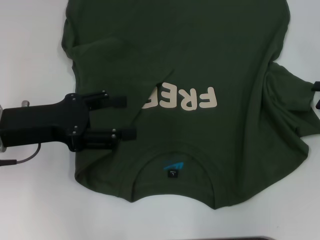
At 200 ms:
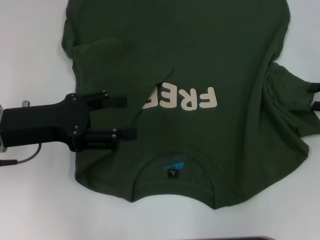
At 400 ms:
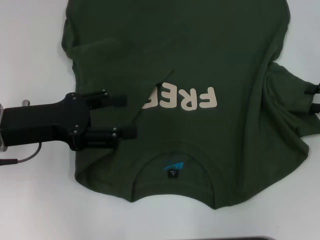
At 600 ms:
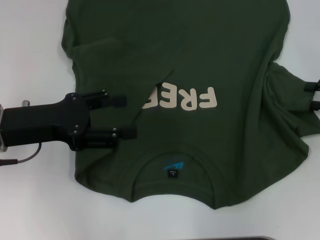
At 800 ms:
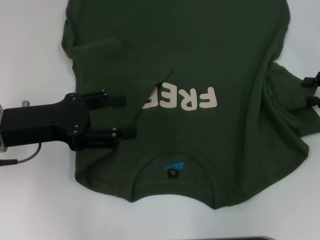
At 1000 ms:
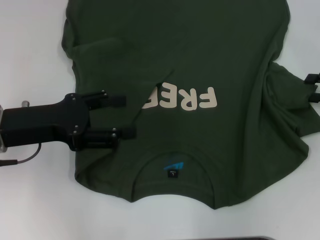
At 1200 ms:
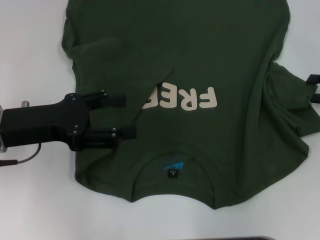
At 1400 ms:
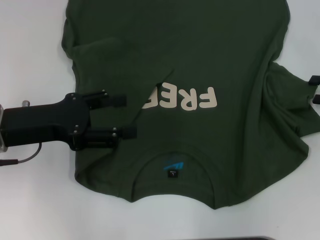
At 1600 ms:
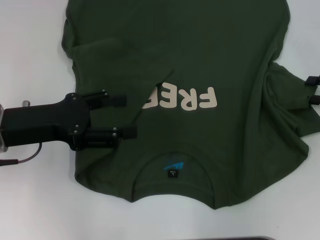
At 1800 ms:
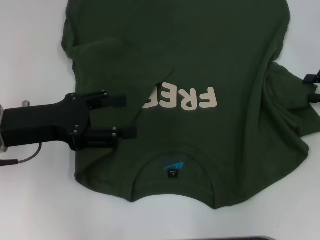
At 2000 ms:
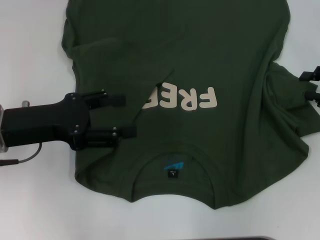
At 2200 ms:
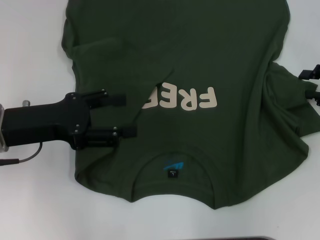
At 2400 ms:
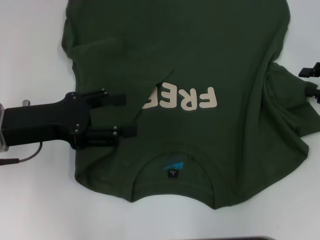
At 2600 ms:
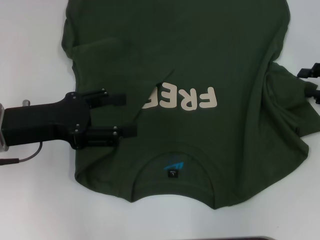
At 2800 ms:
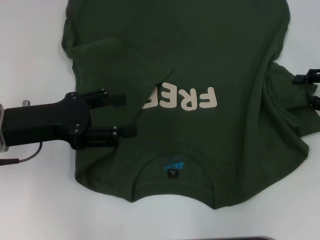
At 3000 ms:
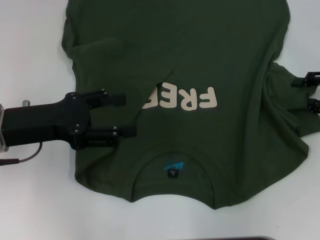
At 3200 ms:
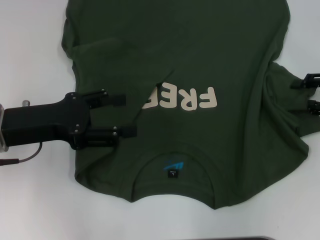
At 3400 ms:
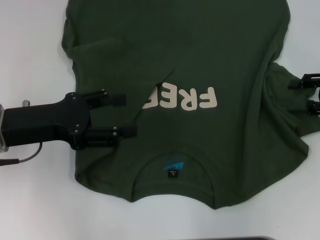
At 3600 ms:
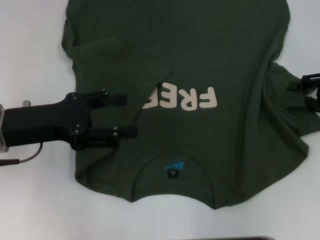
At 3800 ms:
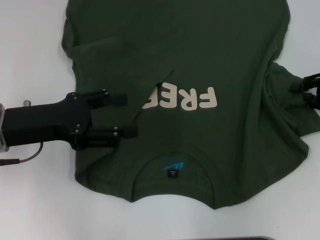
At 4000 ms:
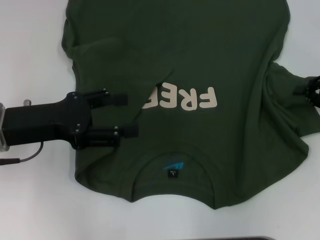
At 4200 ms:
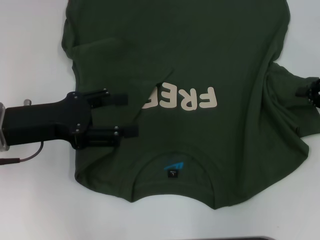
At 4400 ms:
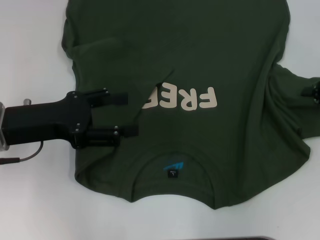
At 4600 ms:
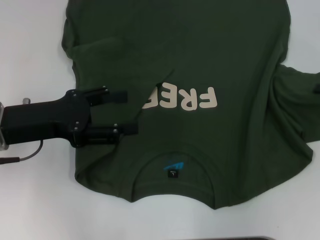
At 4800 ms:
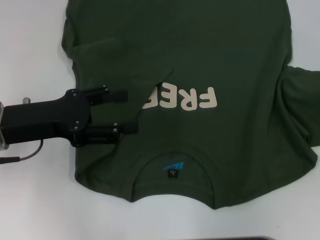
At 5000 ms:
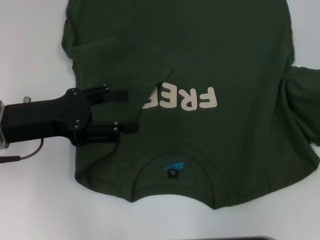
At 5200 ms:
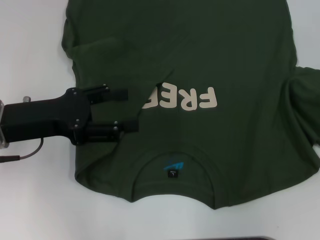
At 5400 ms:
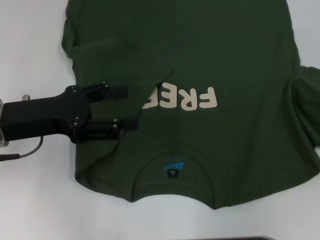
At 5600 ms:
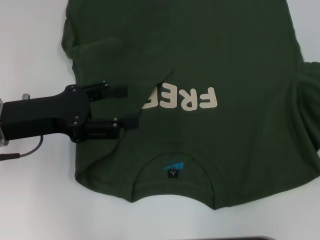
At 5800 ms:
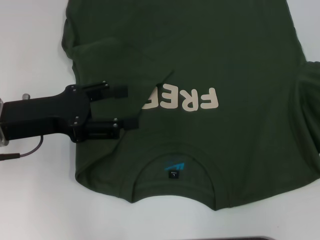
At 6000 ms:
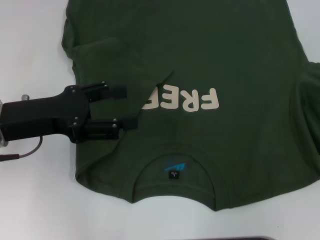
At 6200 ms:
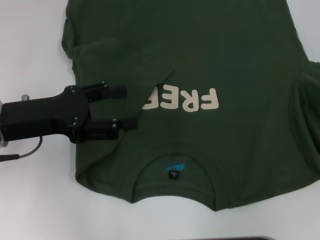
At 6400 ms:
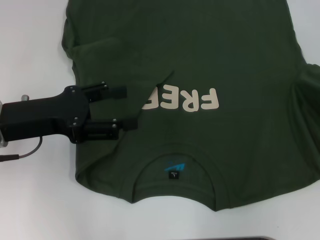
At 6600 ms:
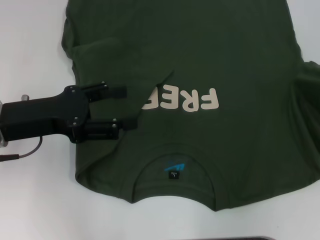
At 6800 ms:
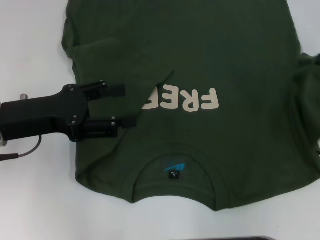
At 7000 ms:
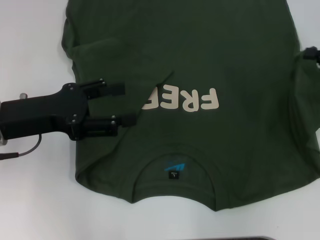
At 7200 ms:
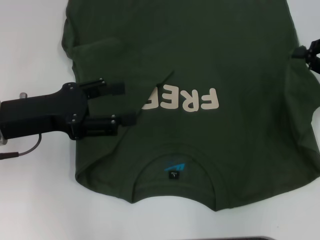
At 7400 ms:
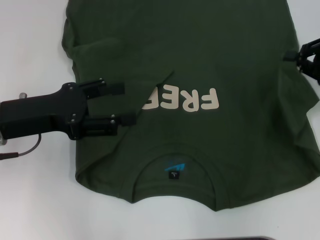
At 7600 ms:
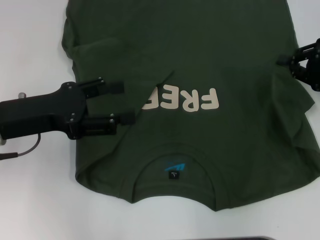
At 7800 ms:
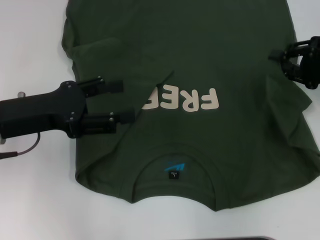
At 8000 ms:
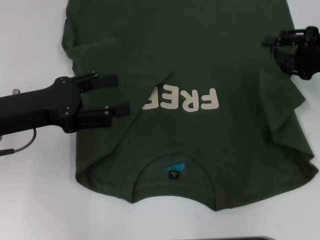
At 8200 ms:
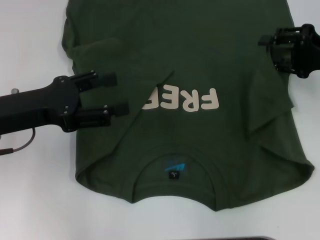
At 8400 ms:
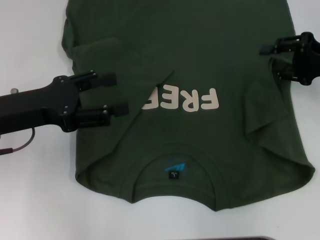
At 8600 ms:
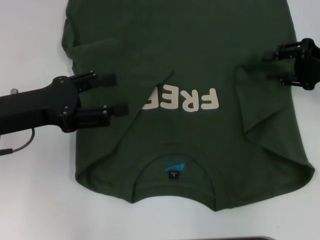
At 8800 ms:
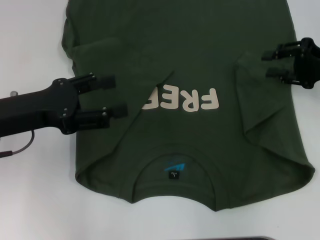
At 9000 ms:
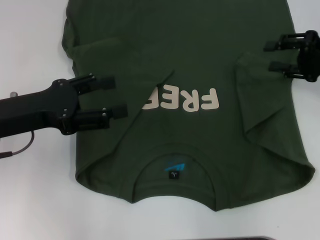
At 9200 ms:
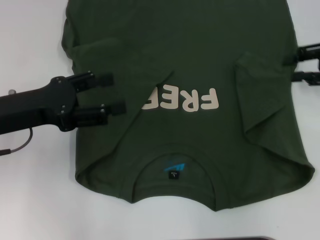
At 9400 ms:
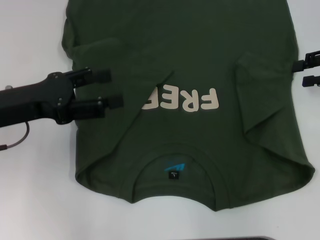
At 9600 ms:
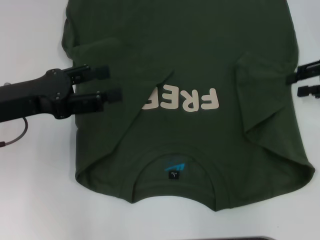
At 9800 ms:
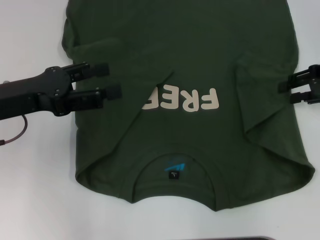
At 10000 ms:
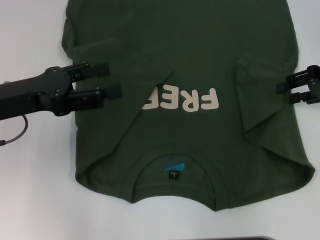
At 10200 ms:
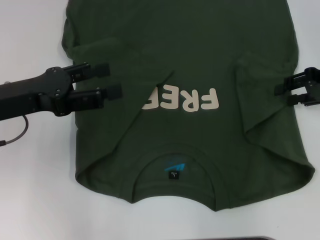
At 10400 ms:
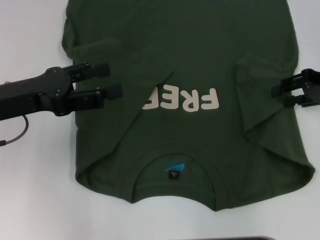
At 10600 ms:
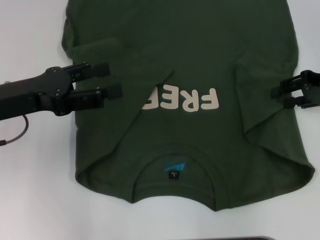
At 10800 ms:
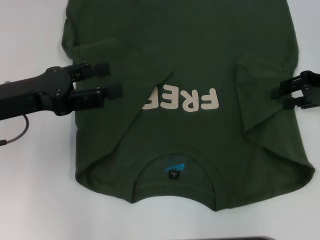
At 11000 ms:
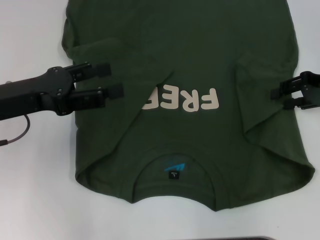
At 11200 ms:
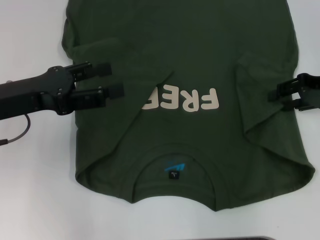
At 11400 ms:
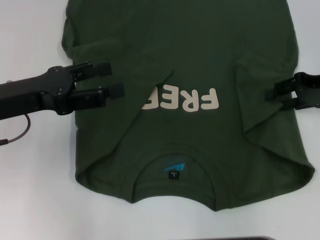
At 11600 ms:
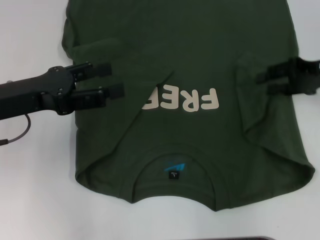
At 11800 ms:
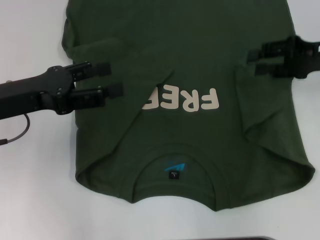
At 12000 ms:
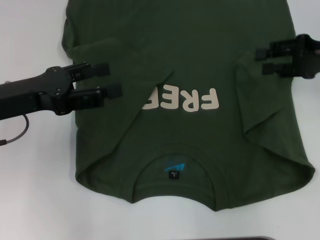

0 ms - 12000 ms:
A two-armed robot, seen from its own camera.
3000 ms - 4400 ms: The right gripper closes its fingers.
4400 ms - 6000 ms: The right gripper shifts roughly 5 cm to the right.
6000 ms - 7600 ms: The right gripper goes roughly 10 cm to the left and forward.
7600 ms - 9000 ms: The right gripper opens up.
10400 ms - 12000 ms: The grippers stay close to where they were, moving slightly.

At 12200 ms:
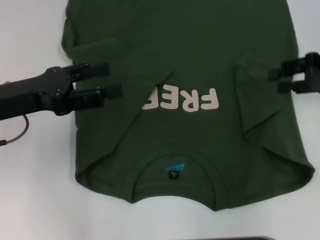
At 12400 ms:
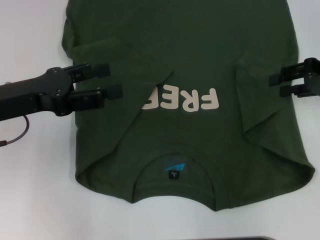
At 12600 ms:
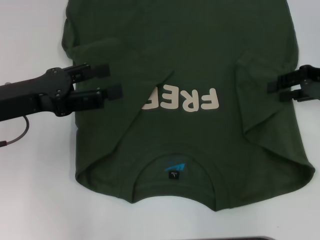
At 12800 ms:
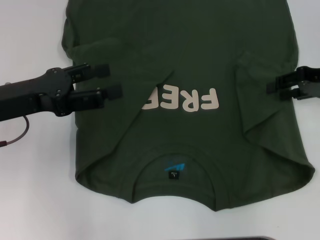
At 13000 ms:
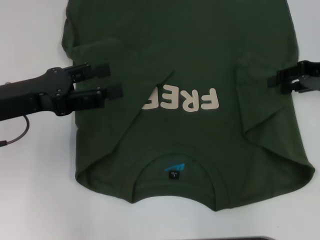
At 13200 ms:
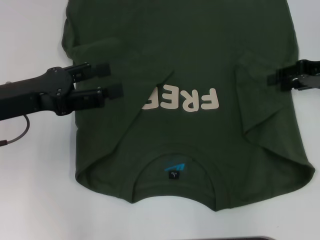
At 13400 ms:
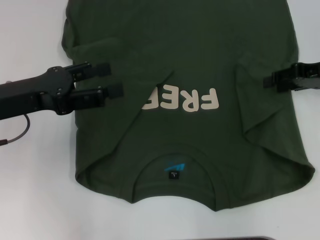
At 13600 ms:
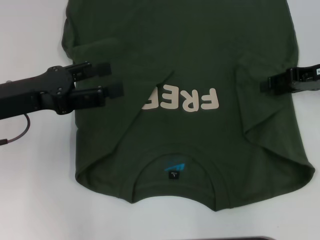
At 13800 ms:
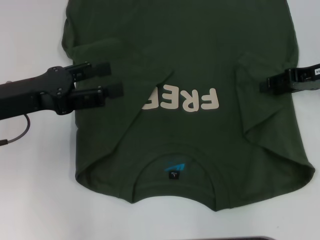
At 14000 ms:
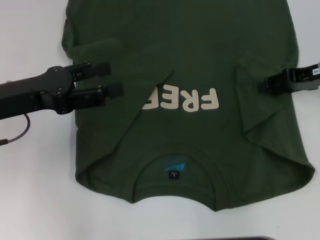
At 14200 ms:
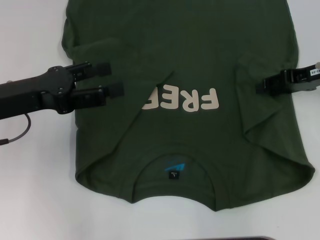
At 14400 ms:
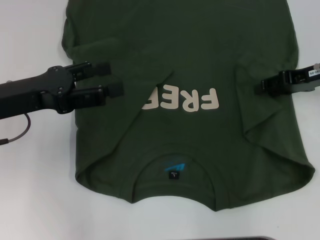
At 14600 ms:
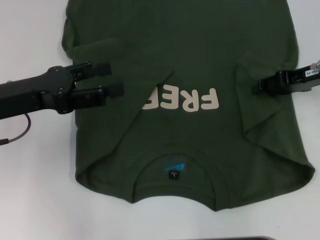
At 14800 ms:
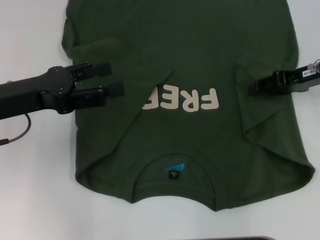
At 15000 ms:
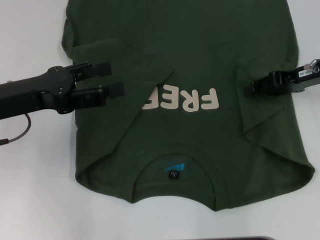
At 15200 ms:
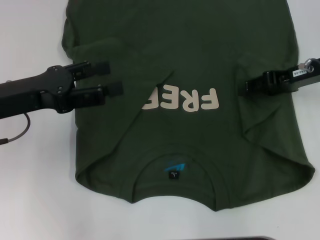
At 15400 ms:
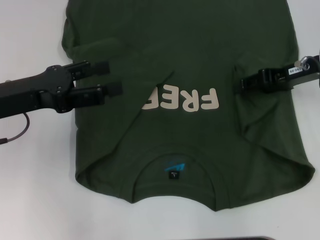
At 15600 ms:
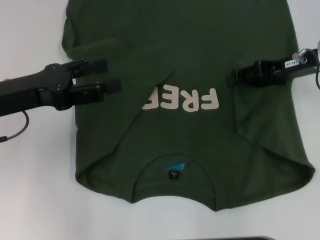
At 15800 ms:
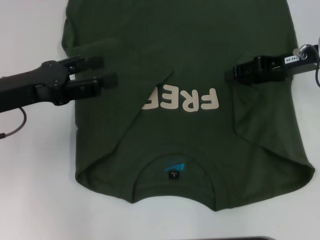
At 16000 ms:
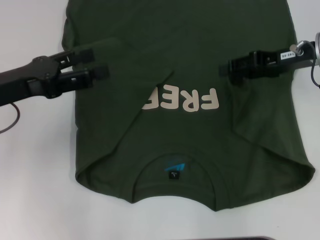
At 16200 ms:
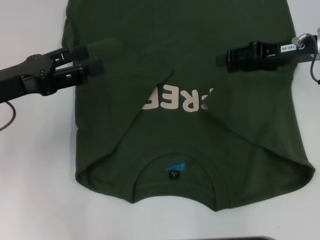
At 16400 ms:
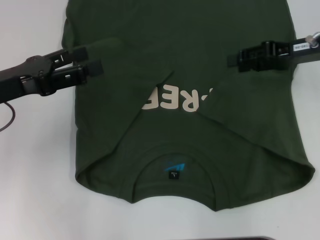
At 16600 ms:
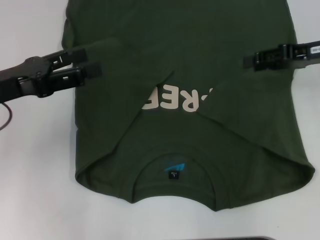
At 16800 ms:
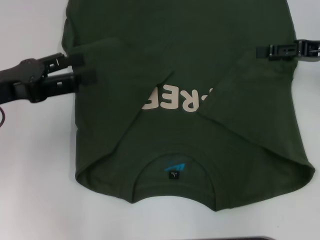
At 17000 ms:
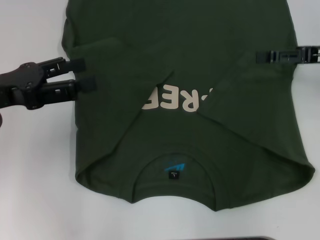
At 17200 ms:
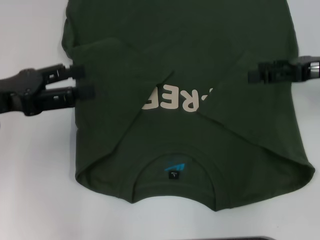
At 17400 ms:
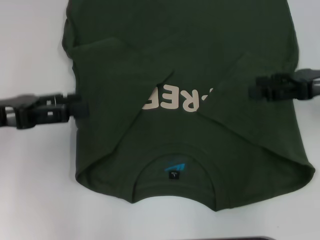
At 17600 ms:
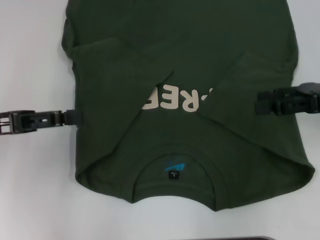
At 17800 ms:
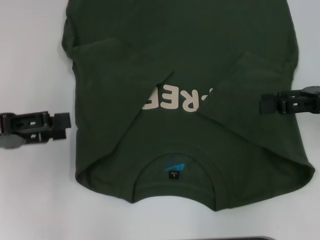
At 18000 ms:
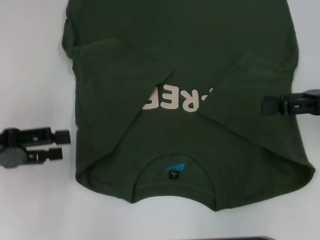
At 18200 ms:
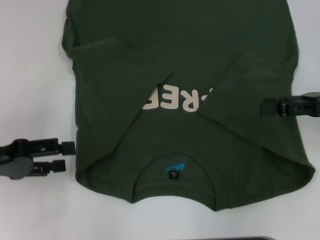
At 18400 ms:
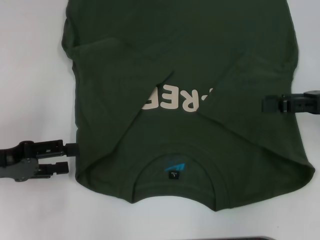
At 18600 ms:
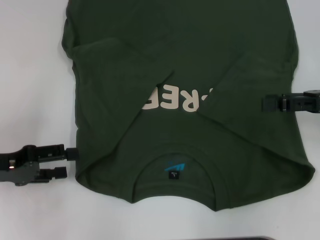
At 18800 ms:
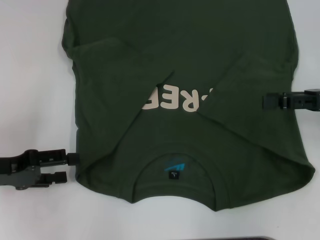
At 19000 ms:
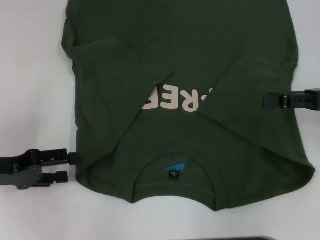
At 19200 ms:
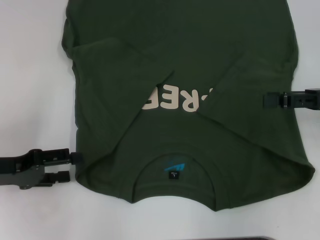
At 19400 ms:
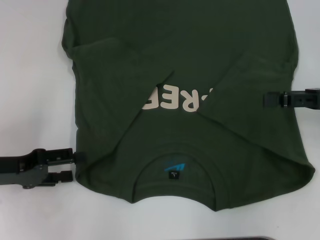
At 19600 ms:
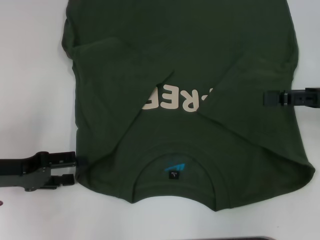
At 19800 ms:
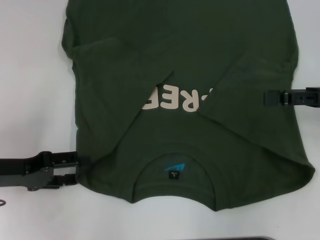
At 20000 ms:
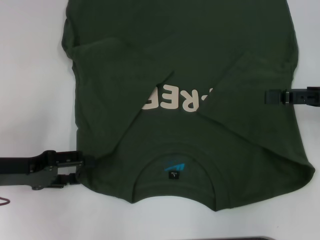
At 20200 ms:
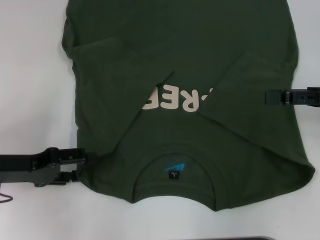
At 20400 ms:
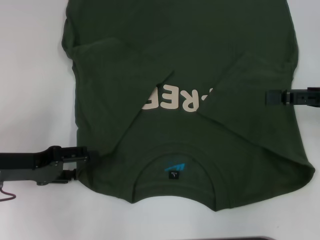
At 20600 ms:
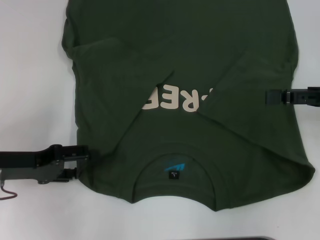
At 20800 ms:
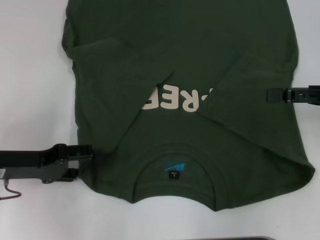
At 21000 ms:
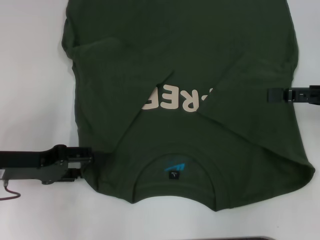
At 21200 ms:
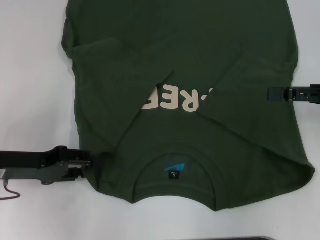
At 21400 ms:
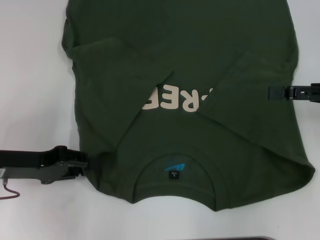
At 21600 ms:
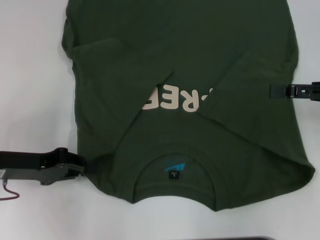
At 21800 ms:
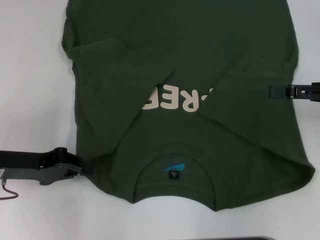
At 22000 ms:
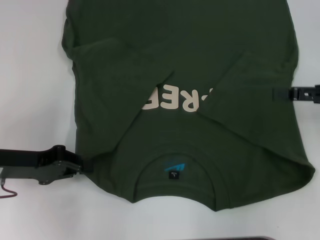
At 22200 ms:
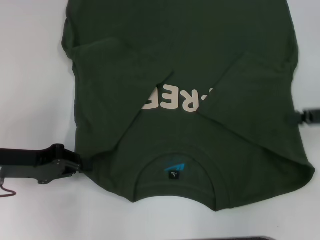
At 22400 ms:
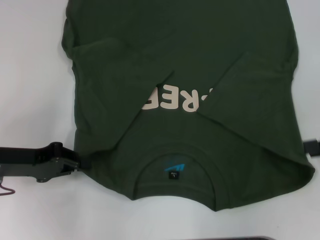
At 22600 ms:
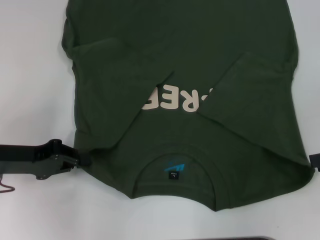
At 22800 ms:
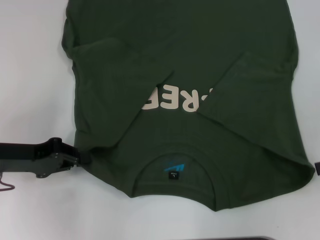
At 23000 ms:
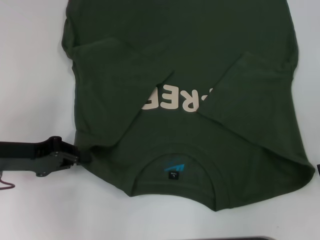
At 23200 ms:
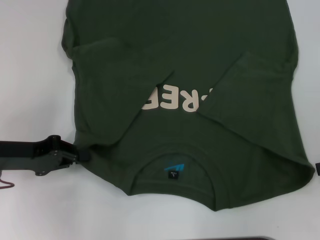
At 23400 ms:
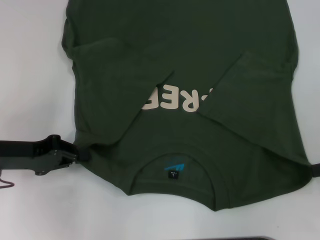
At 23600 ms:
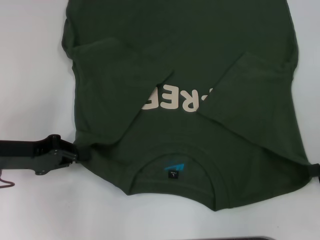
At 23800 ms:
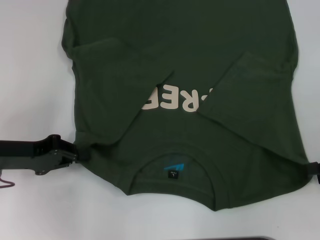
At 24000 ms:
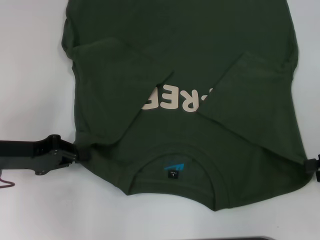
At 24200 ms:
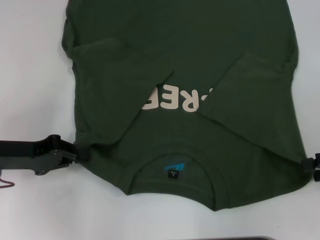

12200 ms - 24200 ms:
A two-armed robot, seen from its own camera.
Step, 12200 ms - 16400 ms: Fold the bottom right sleeve with your right hand.
Step, 16600 ms - 22200 ms: Grab the bottom left corner with your left hand.
13800 ms - 16600 ms: The grippers stay close to where they were, moving slightly.
16600 ms - 18200 ms: The left gripper ends up some 5 cm from where it was. Meanwhile the right gripper shifts about 10 cm backward.
18200 ms - 21200 ms: The grippers stay close to where they were, moving slightly.
21200 ms - 22600 ms: The left gripper closes up, while the right gripper changes place by about 5 cm.
22600 ms - 24200 ms: There are only small adjustments of the grippers.
